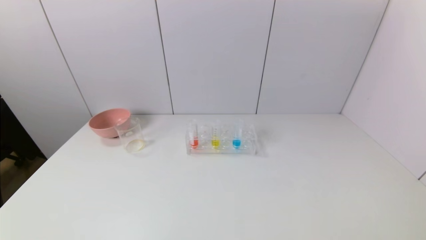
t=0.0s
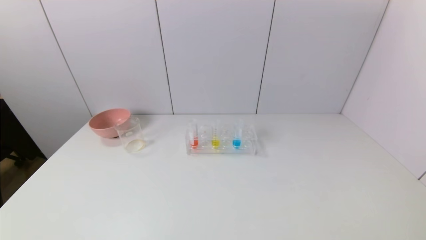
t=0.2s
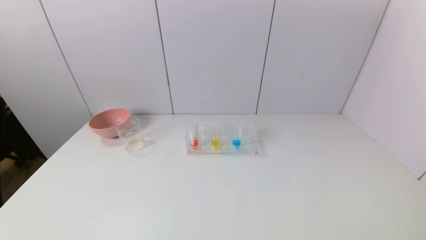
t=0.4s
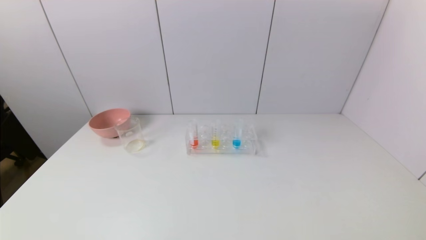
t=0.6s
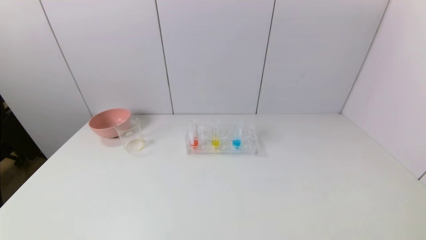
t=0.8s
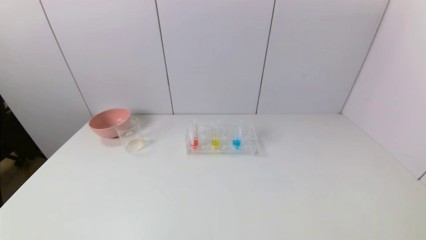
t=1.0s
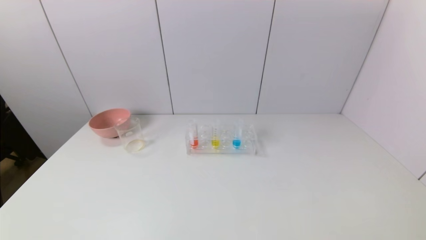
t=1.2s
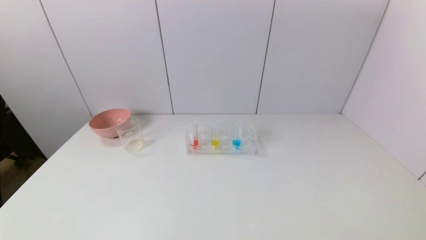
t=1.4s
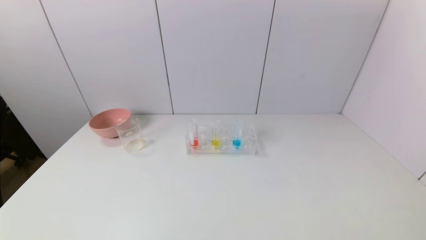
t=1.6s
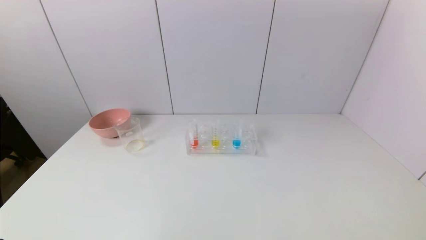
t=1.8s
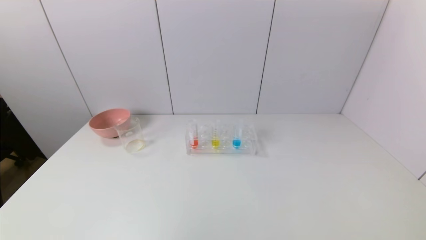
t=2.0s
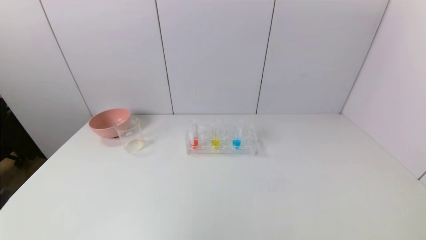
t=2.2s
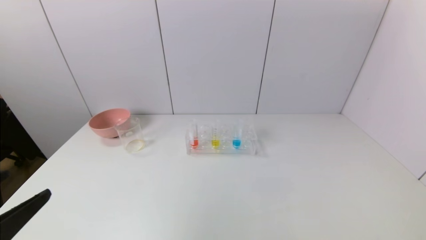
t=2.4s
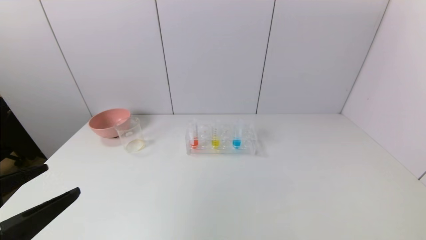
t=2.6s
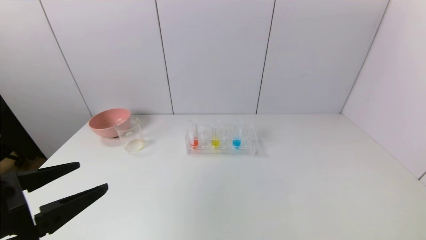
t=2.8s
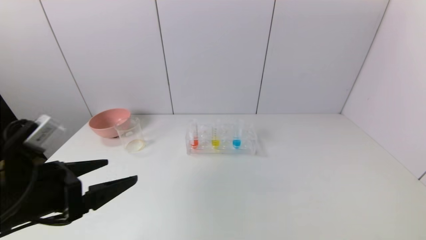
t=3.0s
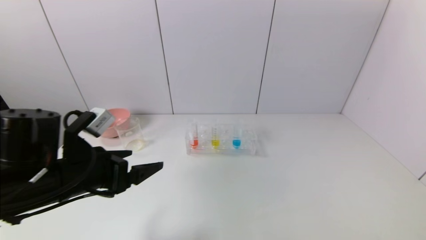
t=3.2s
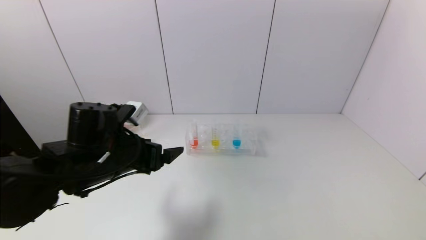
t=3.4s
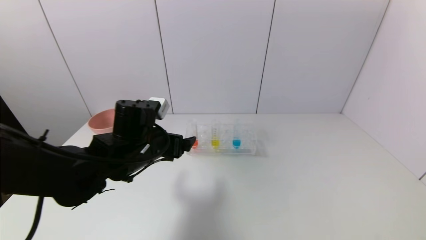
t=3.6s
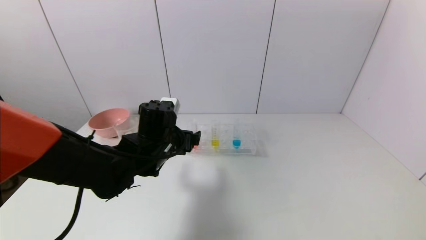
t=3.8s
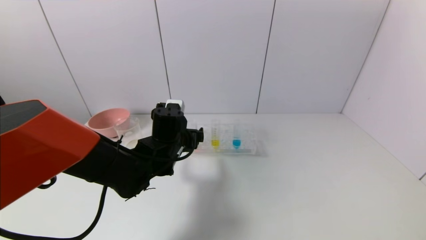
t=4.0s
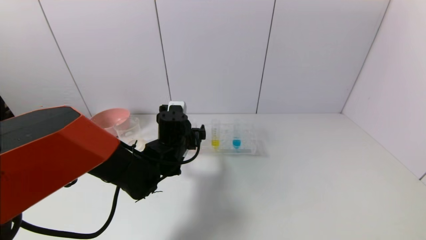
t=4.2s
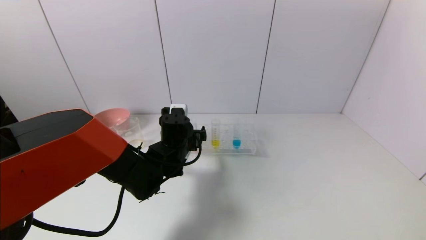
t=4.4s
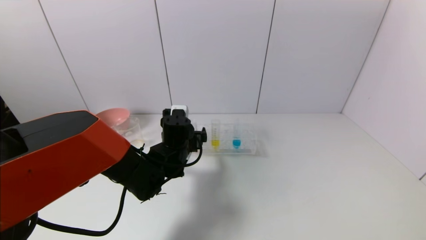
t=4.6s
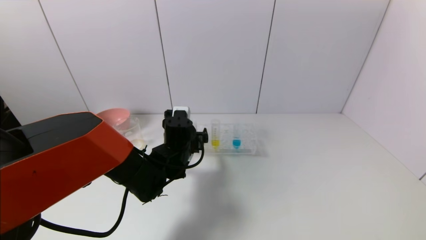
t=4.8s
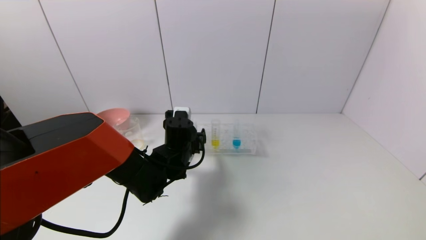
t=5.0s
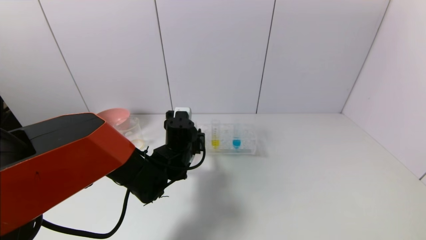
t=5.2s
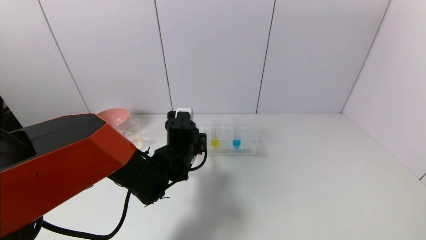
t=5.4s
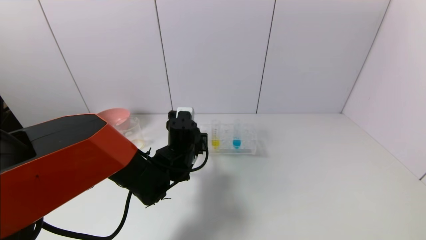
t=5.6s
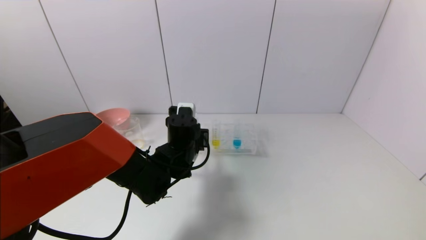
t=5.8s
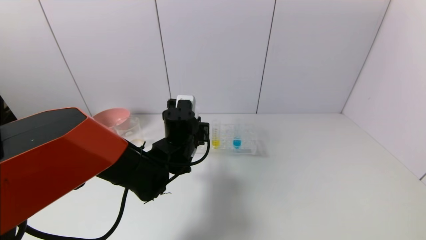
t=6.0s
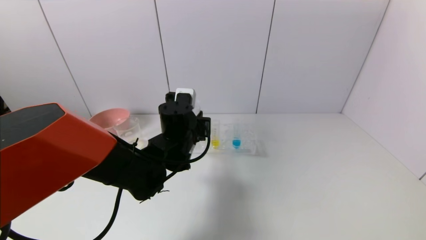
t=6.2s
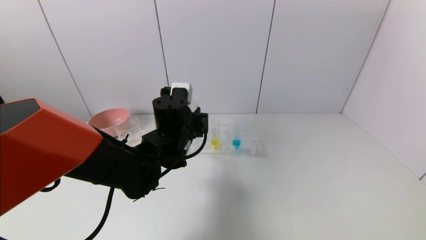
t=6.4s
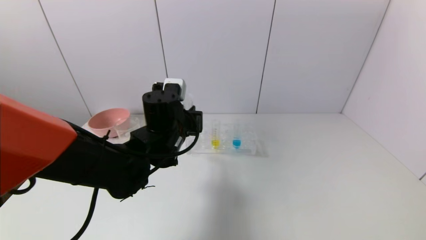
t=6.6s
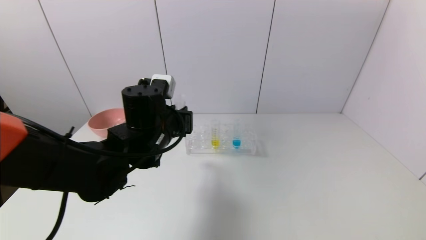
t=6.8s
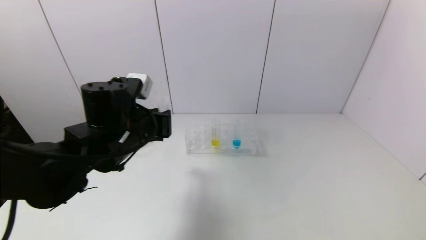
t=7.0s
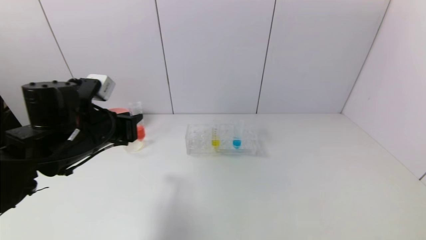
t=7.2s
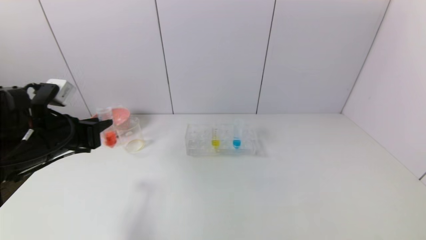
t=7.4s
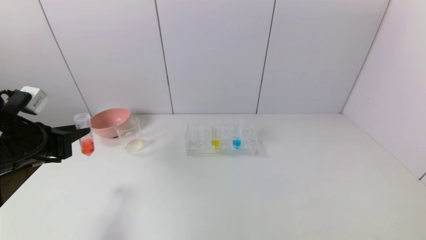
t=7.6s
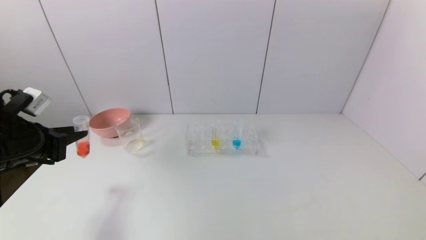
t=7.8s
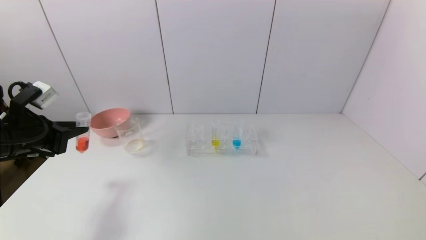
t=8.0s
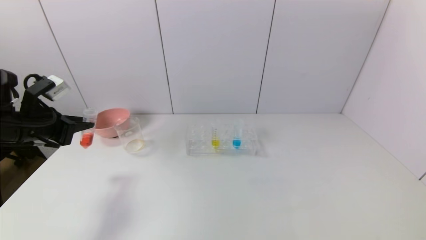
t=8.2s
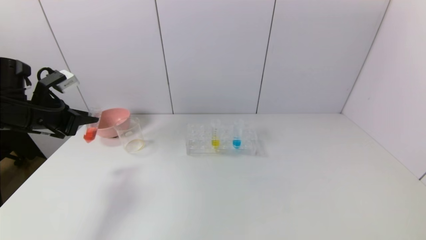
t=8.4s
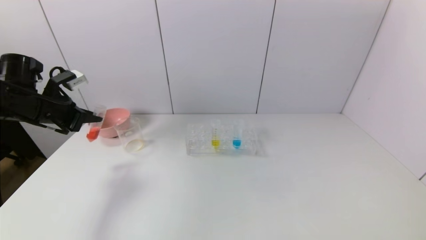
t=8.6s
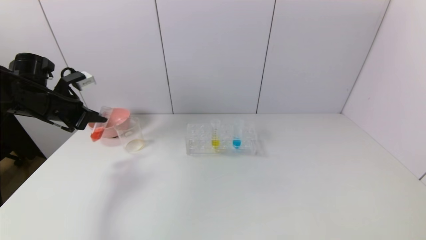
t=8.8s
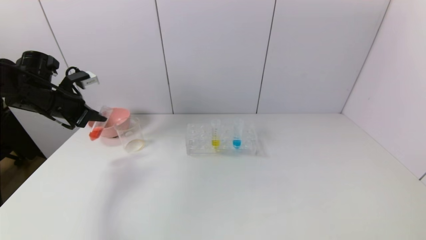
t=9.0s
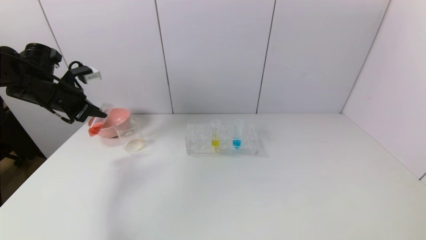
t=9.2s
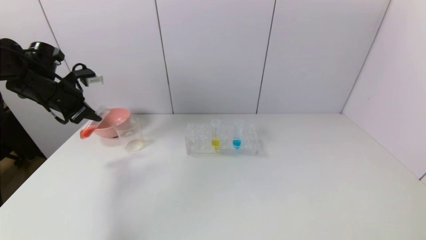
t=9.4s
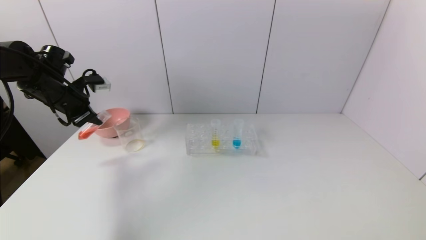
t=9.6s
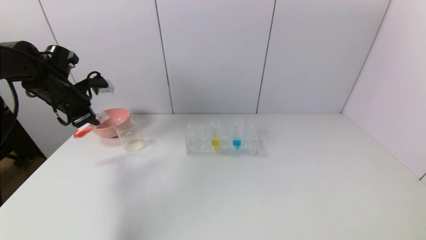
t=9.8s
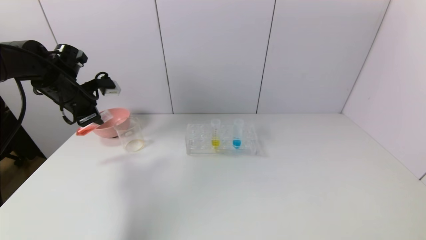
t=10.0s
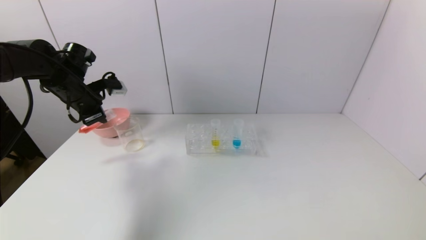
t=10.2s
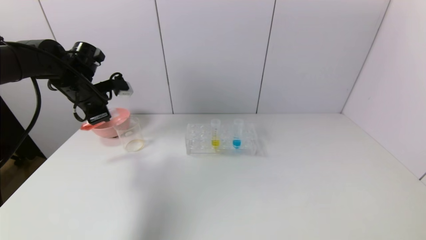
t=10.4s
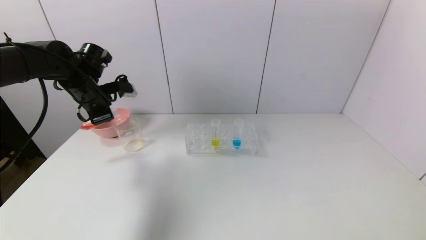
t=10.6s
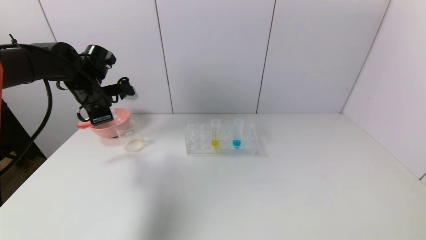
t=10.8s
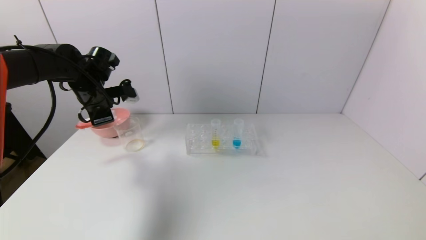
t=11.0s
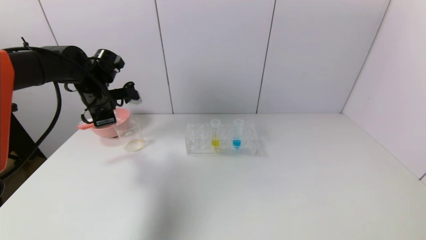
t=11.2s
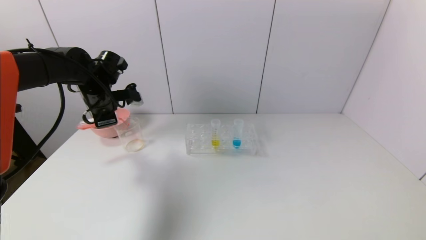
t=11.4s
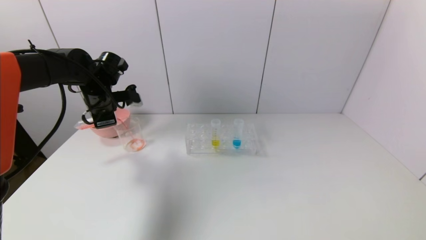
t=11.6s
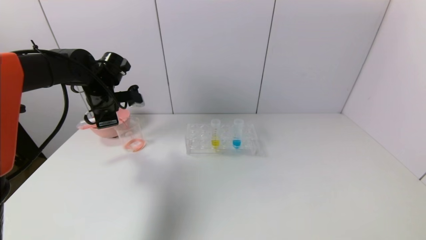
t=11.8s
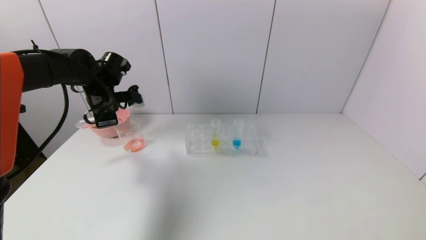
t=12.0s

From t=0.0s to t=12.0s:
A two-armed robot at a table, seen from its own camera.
Task of the whole recording: pick up the test tube with yellow pigment and the test tube with red pigment by grippers and pour them into the beaker.
Step, from t=0.0s to t=5.6s: Grasp the red reagent with the left gripper.
From t=1.6s to t=3.0s: The left gripper shifts roughly 20 cm forward and upward.
From t=3.0s to t=4.4s: The left gripper goes some 25 cm forward, to the right and downward.
From t=4.4s to t=6.0s: The left gripper closes up.
From t=6.0s to t=7.6s: The left gripper moves to the left, roughly 25 cm.
From t=7.6s to t=9.0s: The left gripper travels forward by about 15 cm.
From t=9.0s to t=10.4s: The left gripper moves to the right, roughly 5 cm.
From t=10.4s to t=12.0s: There are only small adjustments of the grippers.

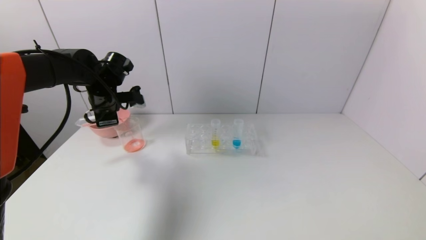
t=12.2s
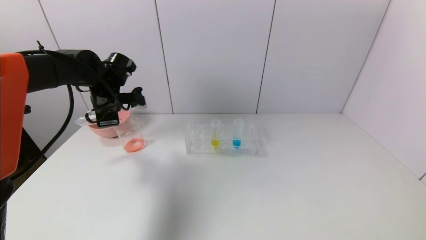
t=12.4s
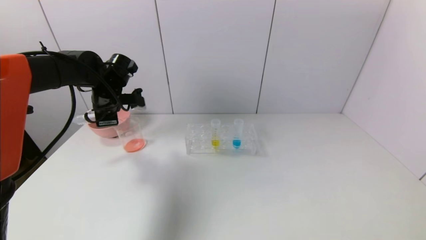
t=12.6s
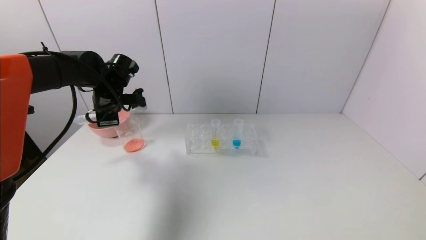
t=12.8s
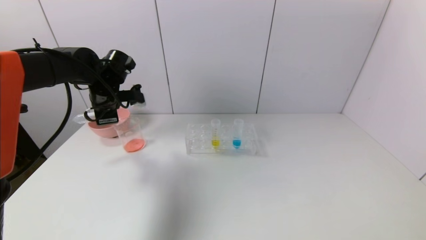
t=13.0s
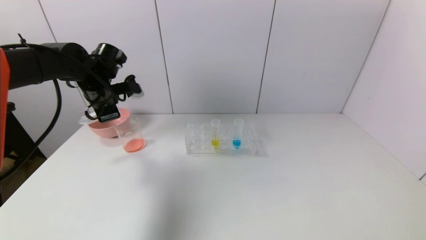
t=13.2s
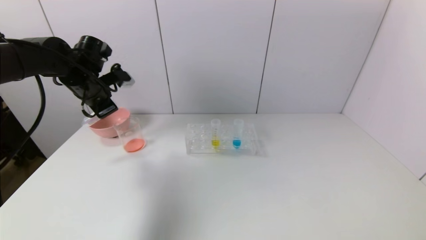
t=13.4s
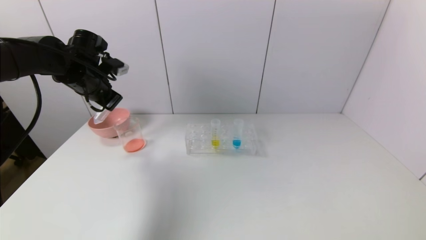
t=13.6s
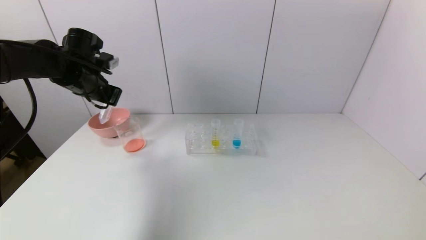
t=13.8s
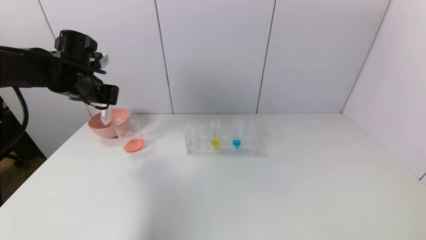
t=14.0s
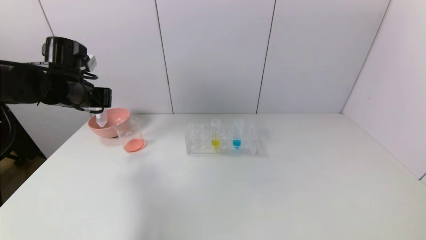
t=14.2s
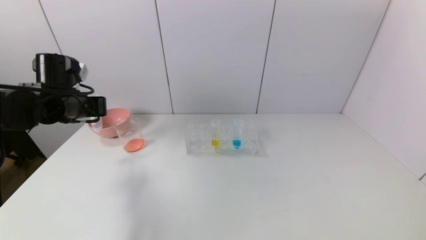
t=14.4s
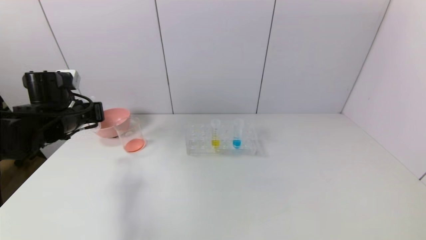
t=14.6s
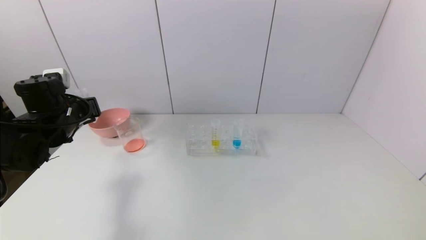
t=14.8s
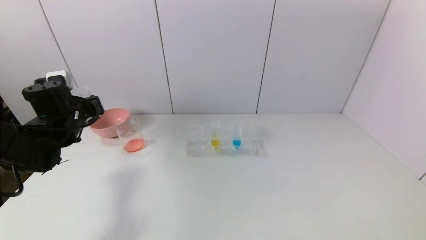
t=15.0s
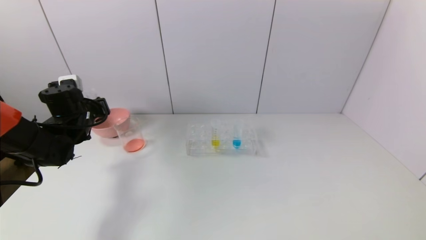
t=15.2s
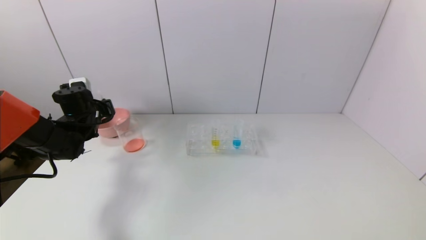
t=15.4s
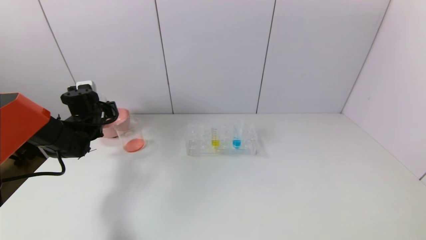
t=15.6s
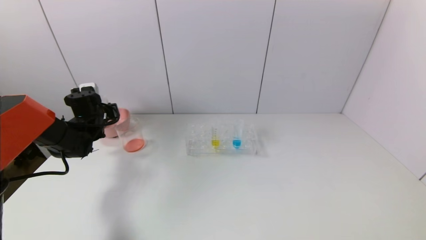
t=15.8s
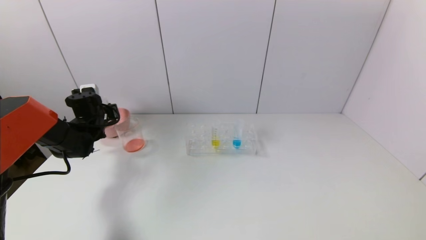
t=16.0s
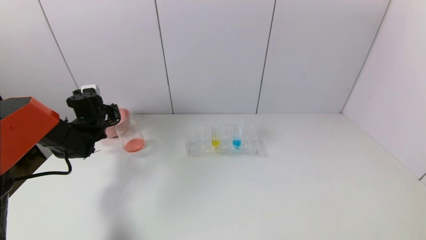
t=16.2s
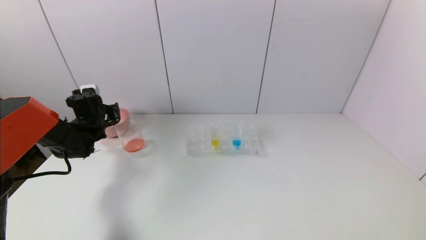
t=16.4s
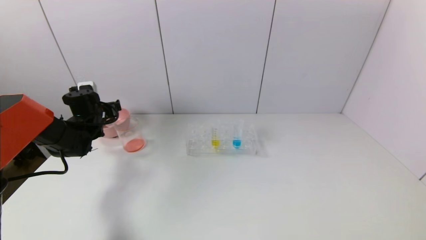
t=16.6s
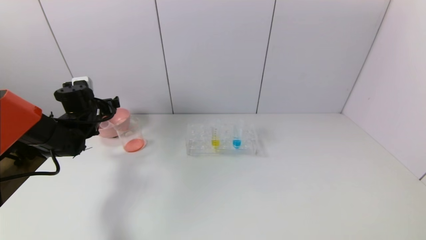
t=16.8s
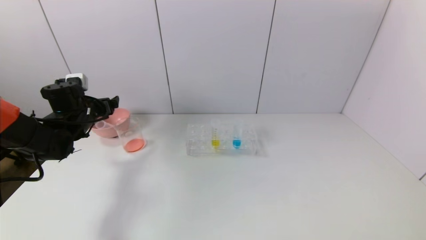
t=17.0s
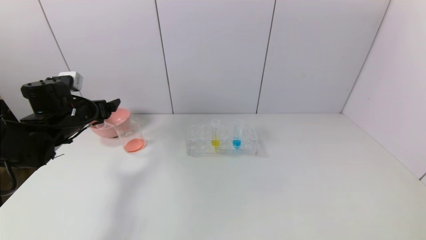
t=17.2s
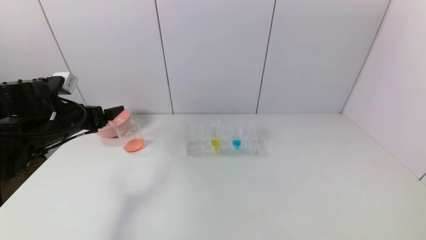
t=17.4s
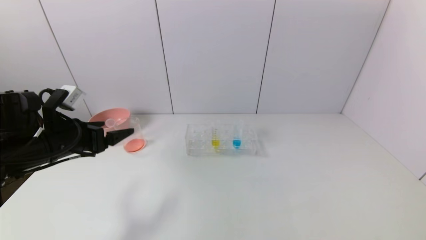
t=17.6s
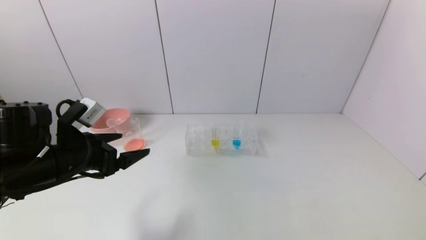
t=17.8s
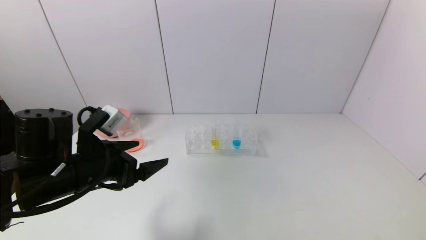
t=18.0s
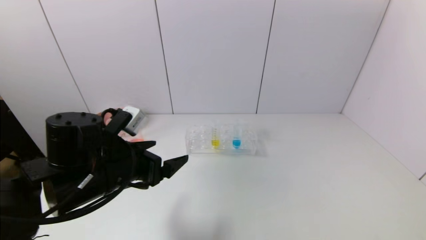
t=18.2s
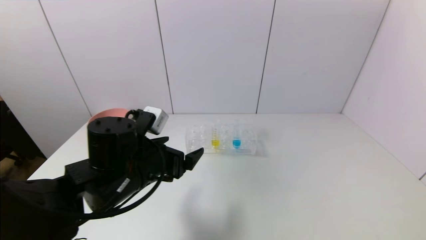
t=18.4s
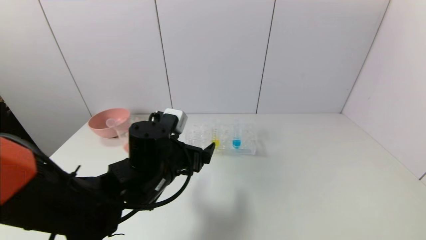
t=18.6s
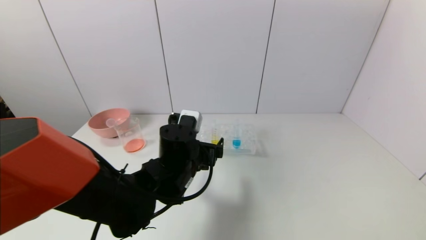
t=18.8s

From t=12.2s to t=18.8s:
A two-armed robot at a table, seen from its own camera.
Task of the whole recording: pick up the test tube with yellow pigment and the test tube with red pigment by grippers and pour them into the beaker.
Step, from t=13.0s to t=16.6s: Place the test tube into the pink bowl with the left gripper.
From t=12.2s to t=13.8s: The left gripper shifts by some 5 cm.
From t=13.8s to t=15.4s: The left gripper heads downward, covering about 10 cm.
From t=15.4s to t=17.2s: The left gripper shifts approximately 5 cm backward, and opens up.
From t=17.2s to t=18.8s: The left gripper travels to the right by about 25 cm.
